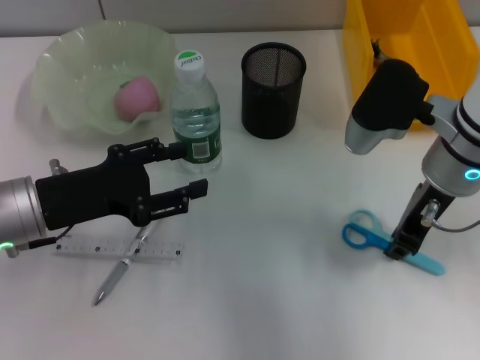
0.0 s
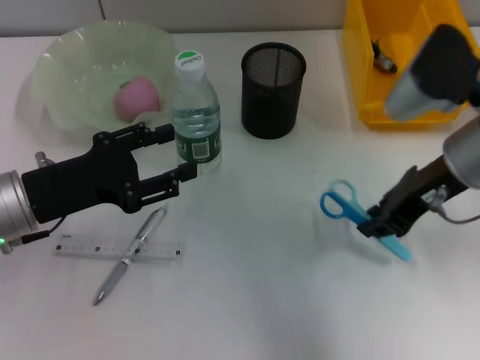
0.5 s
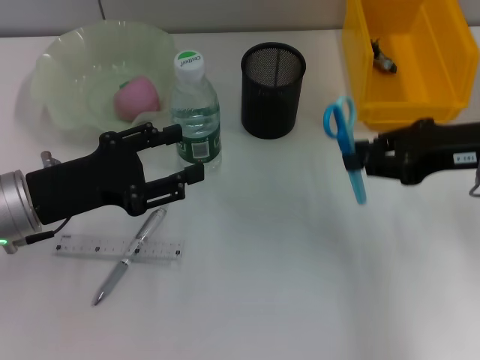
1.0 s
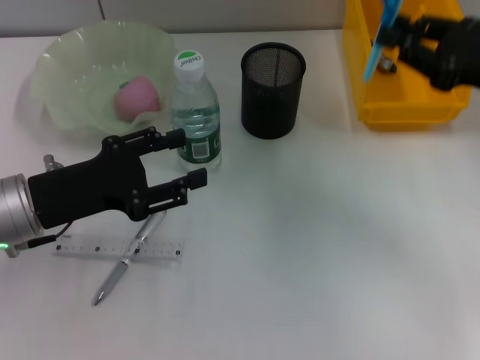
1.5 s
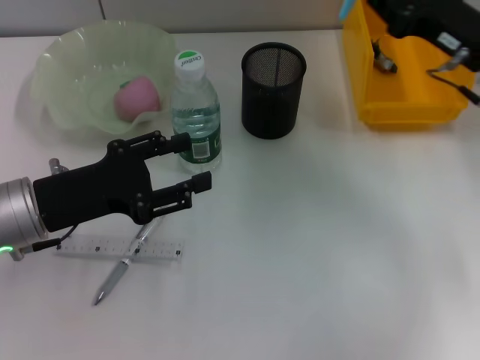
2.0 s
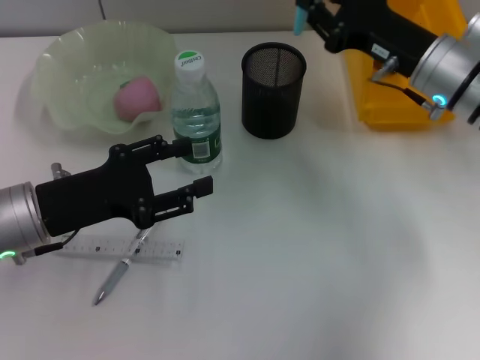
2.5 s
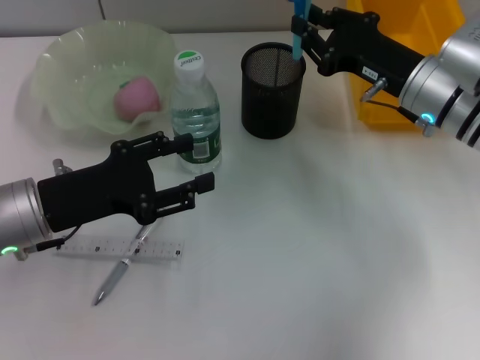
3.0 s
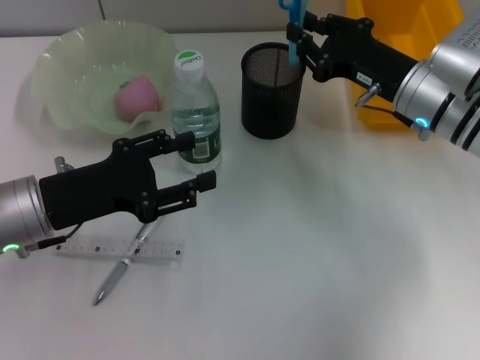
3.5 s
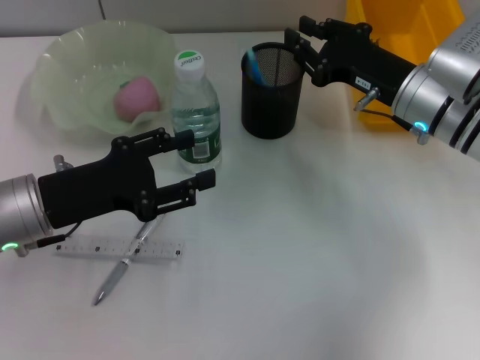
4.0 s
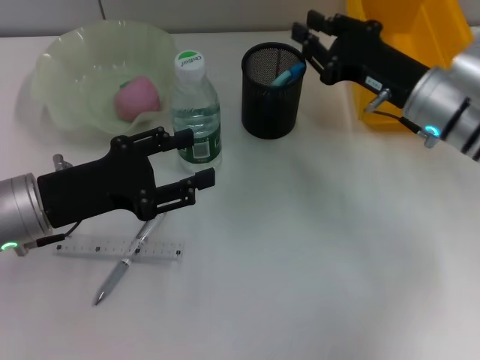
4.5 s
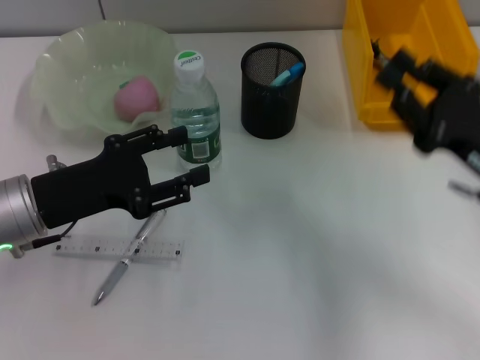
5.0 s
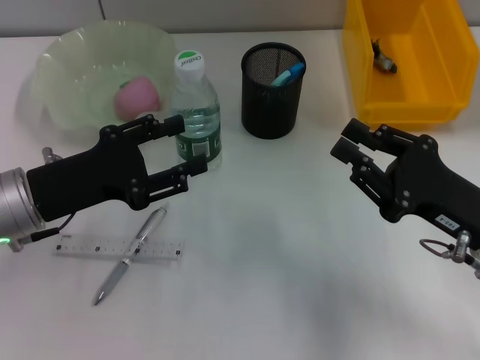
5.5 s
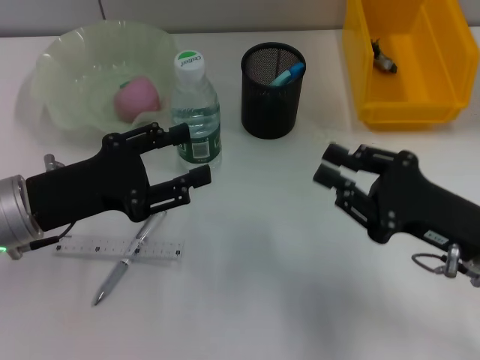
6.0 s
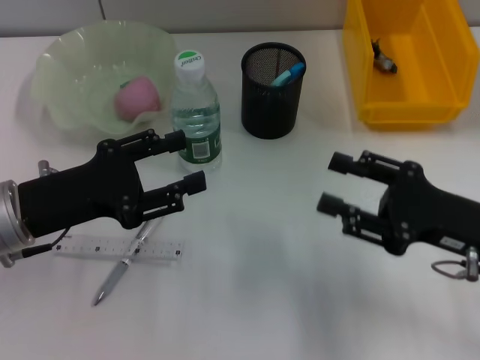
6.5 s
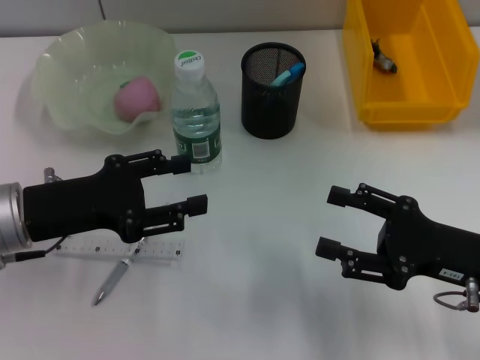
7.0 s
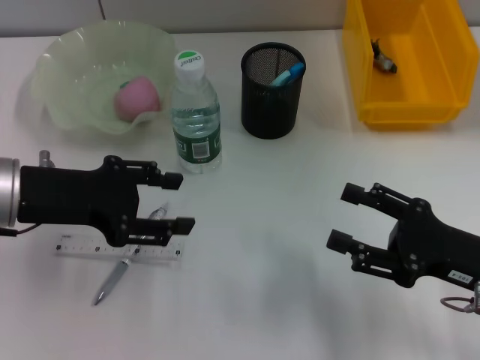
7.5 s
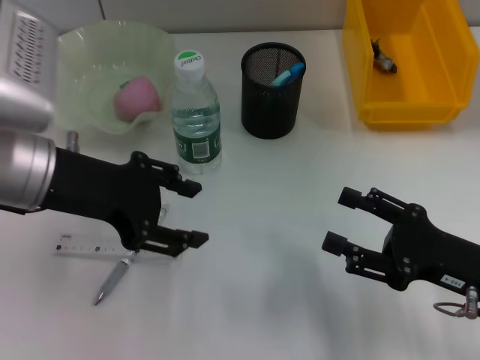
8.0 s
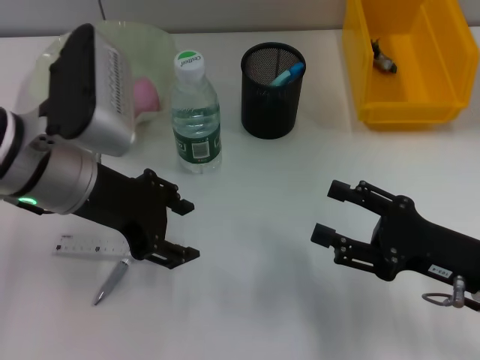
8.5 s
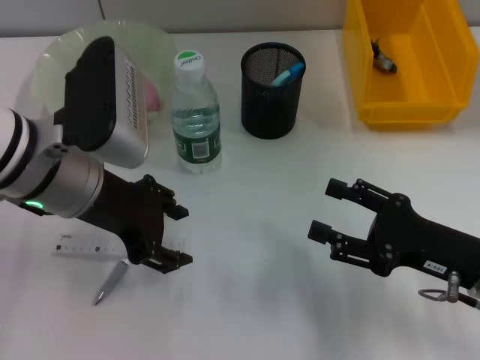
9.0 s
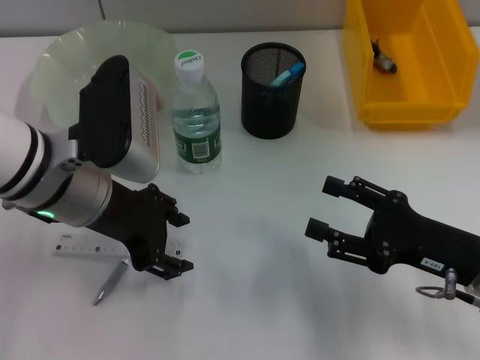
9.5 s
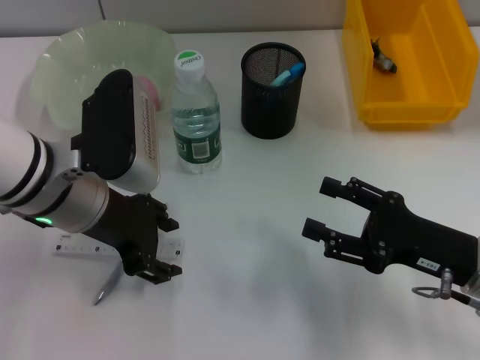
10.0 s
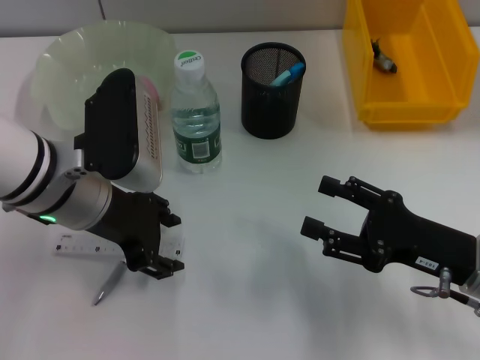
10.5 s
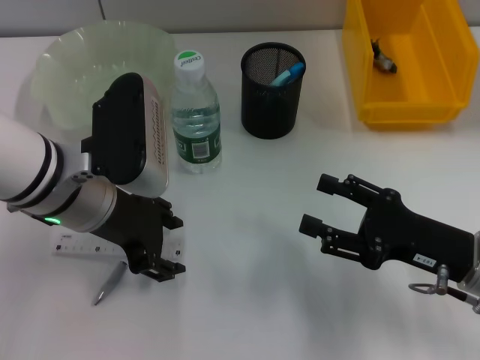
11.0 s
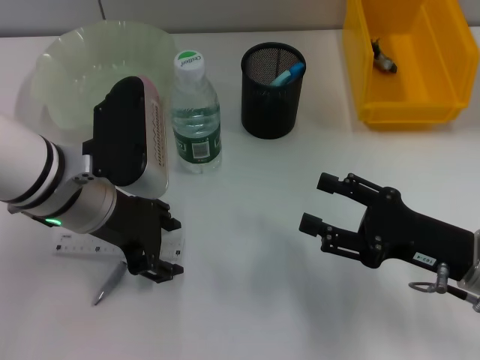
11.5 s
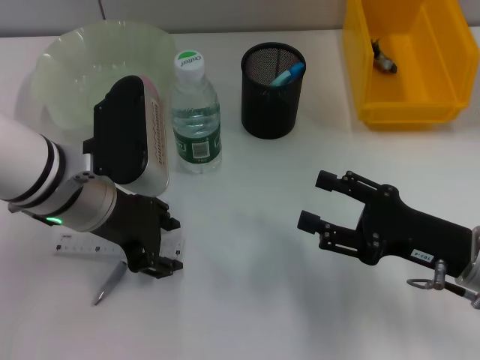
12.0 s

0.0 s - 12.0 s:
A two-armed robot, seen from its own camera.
Step, 0.0 s - 3.5 s: Place the blue scissors into the pen holder with the right hand.
0.0 s - 2.0 s: The right gripper heads to the right, covering roughly 10 cm.
2.0 s - 4.0 s: The right gripper travels to the left by about 5 cm.
4.0 s - 6.0 s: The right gripper goes about 15 cm backward.
6.0 s - 8.0 s: The right gripper opens up, while the left gripper travels upward by about 10 cm.
8.0 s - 10.0 s: The left gripper ends up some 5 cm from where it was.
10.0 s - 12.0 s: Both grippers stay about where they are.

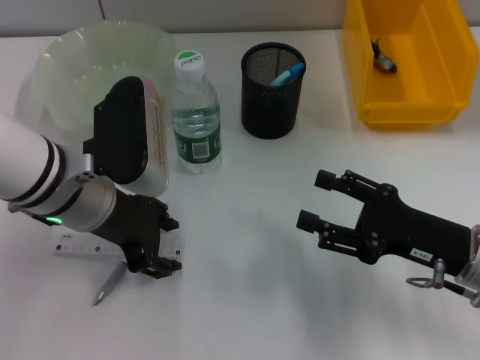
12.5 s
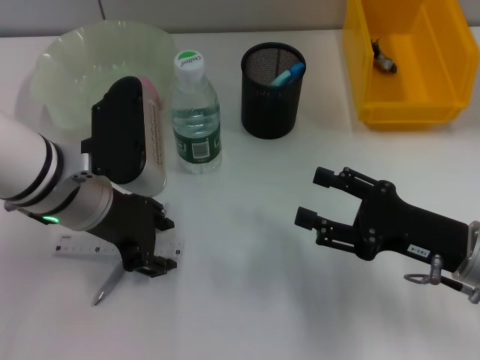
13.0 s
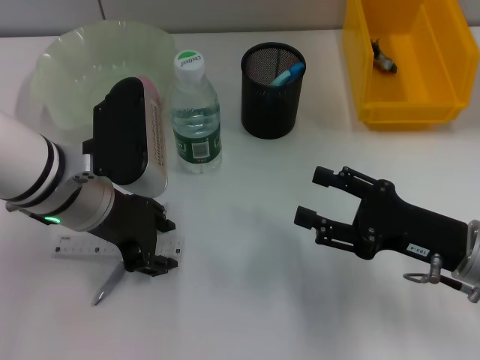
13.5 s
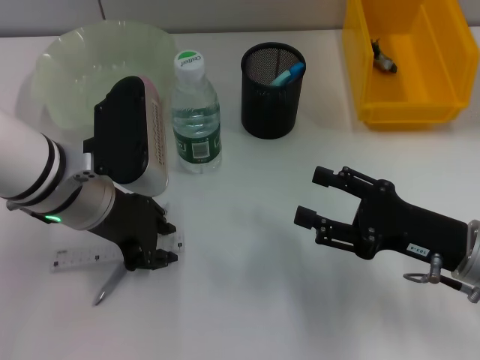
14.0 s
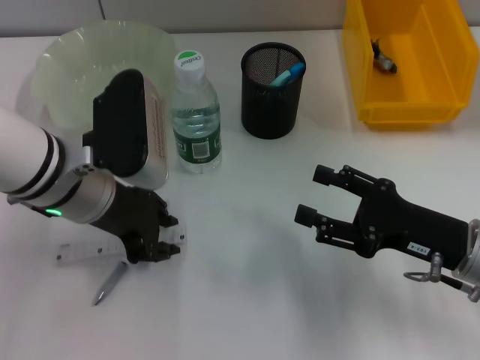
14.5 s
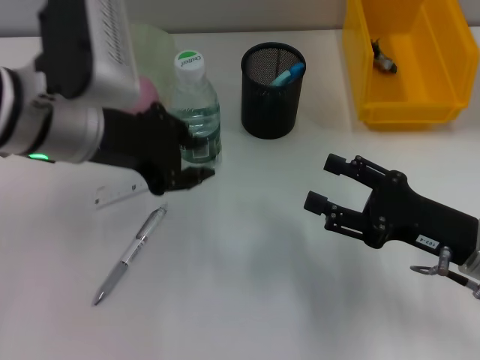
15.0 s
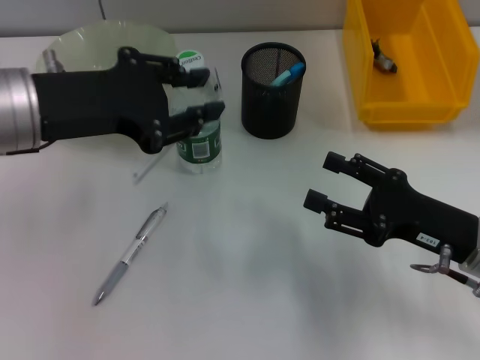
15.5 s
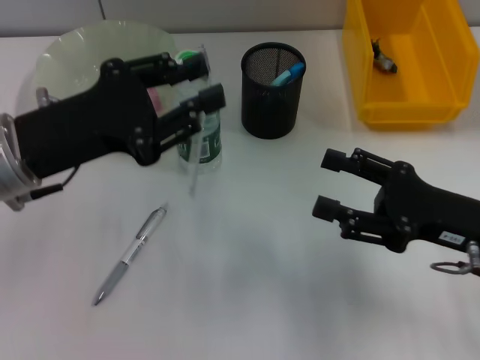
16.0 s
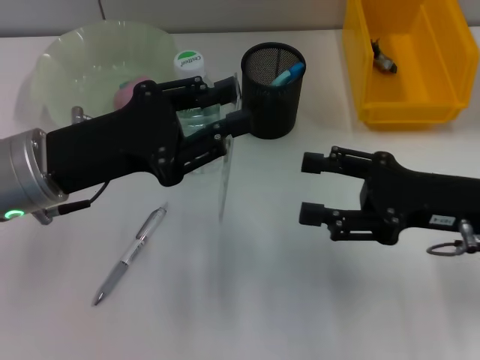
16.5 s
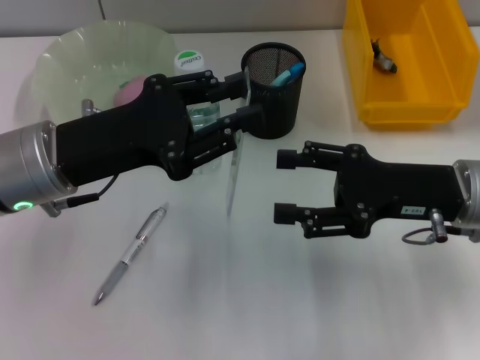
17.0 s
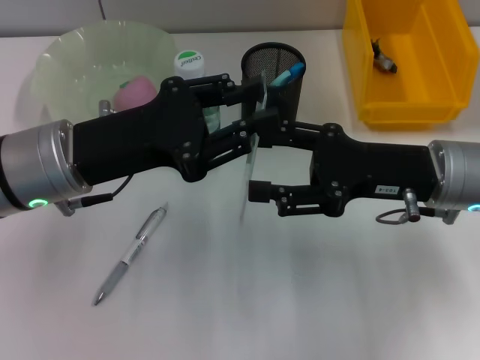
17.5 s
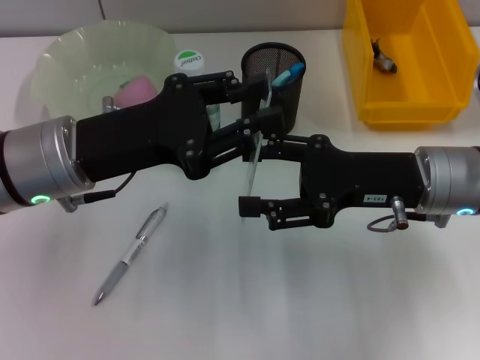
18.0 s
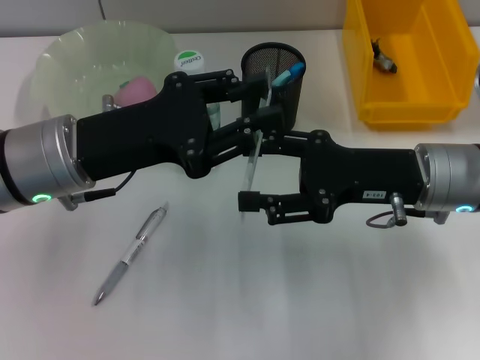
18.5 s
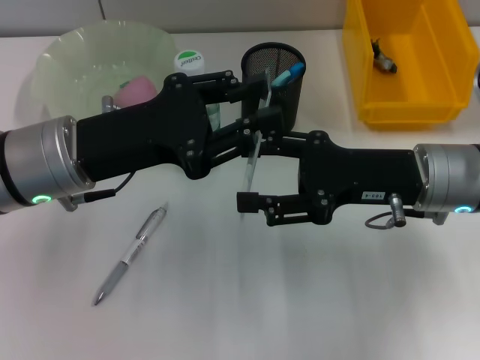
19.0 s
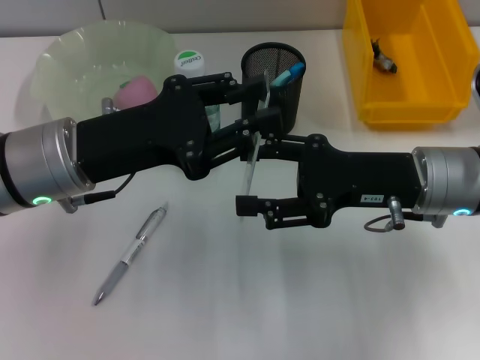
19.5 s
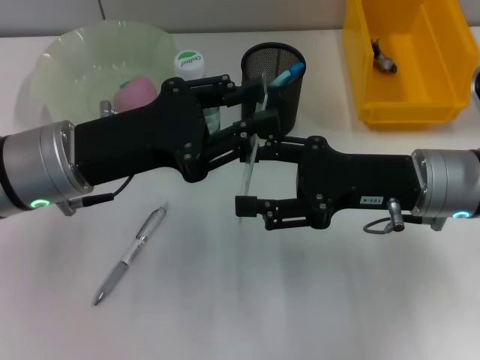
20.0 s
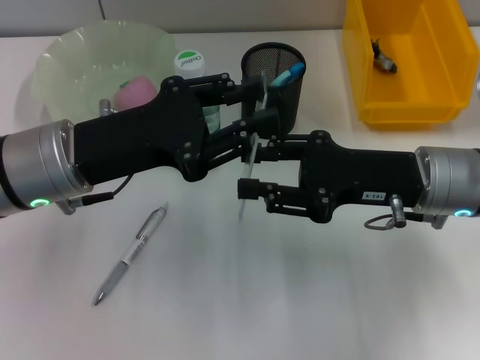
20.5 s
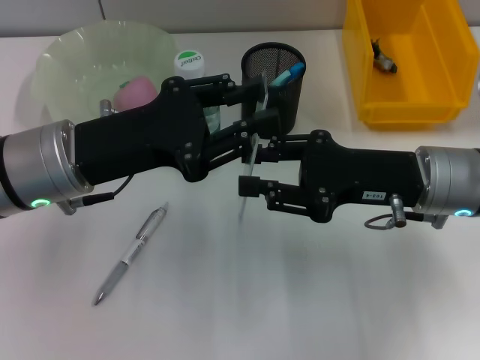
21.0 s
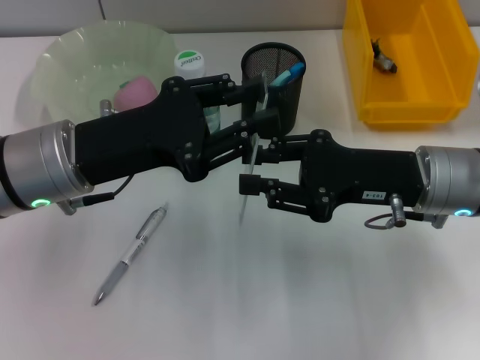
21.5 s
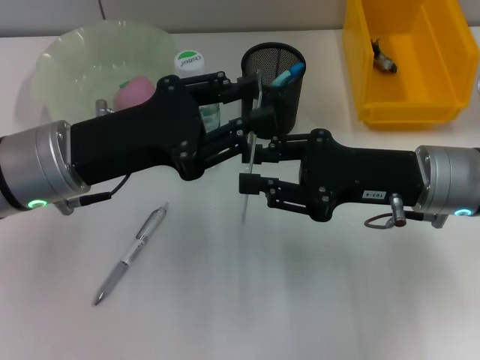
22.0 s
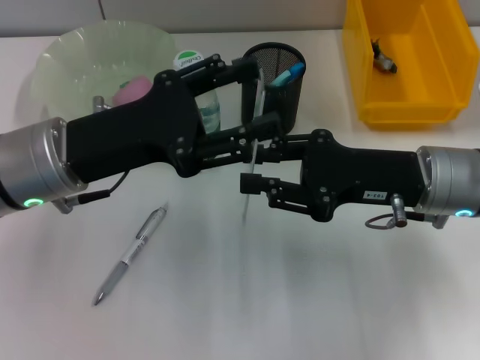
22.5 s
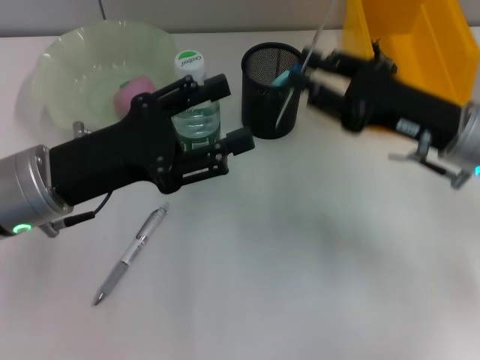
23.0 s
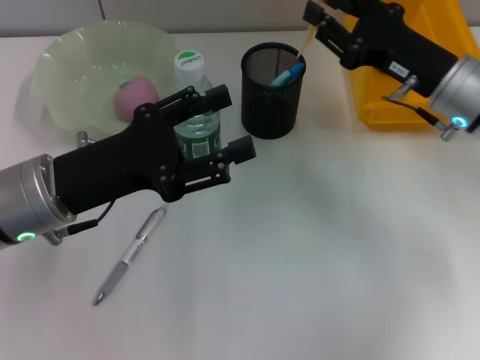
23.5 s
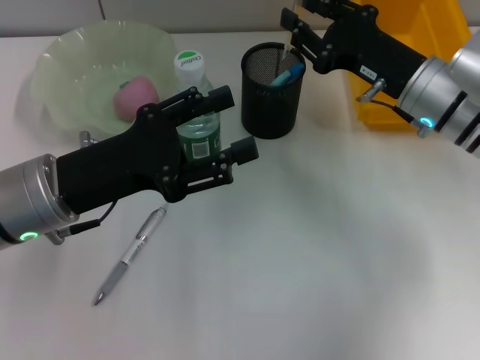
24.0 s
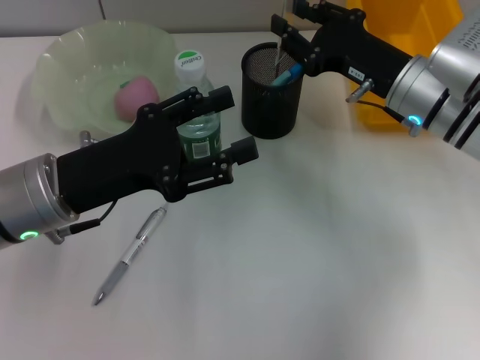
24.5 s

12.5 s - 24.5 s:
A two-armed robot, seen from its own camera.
Step, 14.5 s - 22.5 s: Pass the ruler from the left hand to the right hand.
12.5 s - 14.5 s: The left gripper closes.
14.5 s - 16.5 s: The left gripper ends up roughly 5 cm from where it was, while the right gripper goes about 5 cm upward.
16.5 s - 18.5 s: The right gripper ends up some 5 cm from where it was.
18.5 s - 20.5 s: Neither gripper changes place.
20.5 s - 22.5 s: The right gripper closes its fingers.
22.5 s - 24.5 s: The right gripper is displaced forward by about 10 cm.

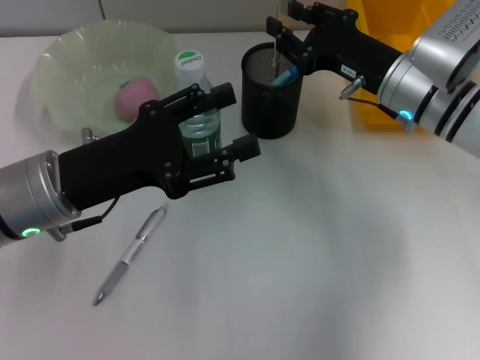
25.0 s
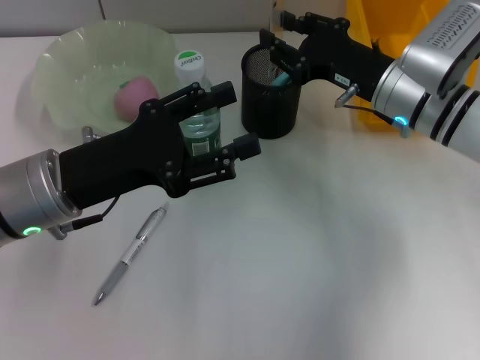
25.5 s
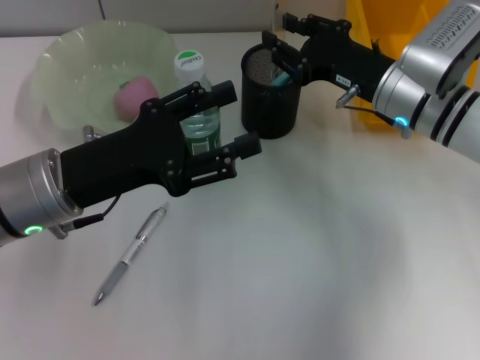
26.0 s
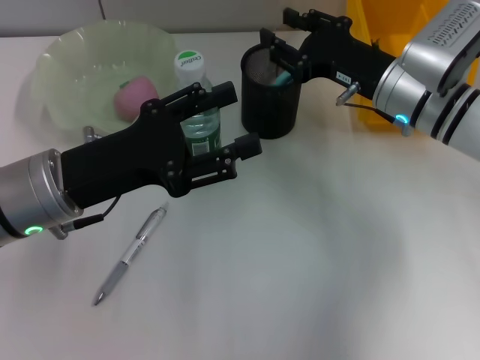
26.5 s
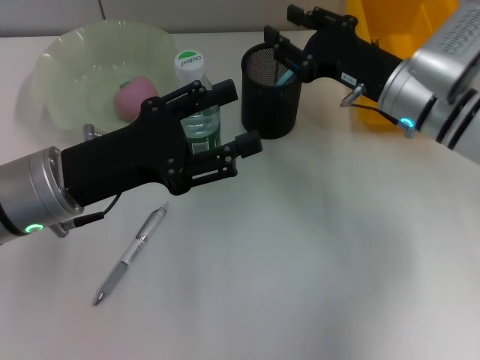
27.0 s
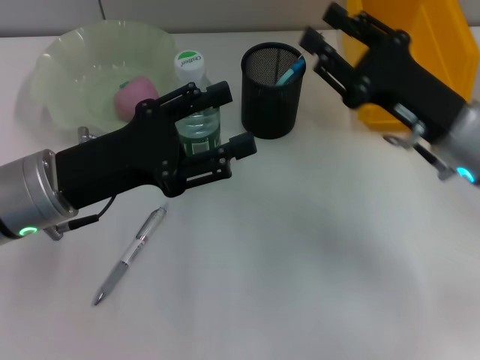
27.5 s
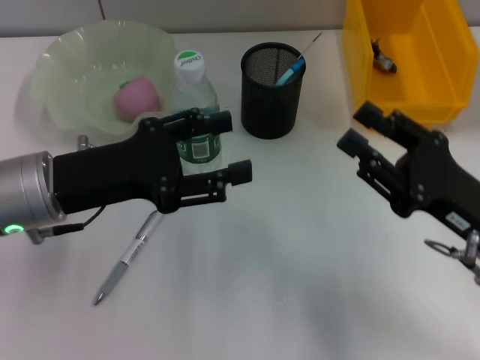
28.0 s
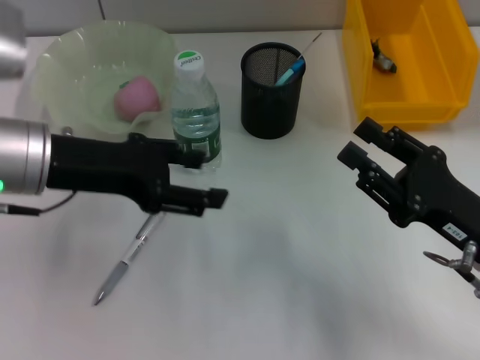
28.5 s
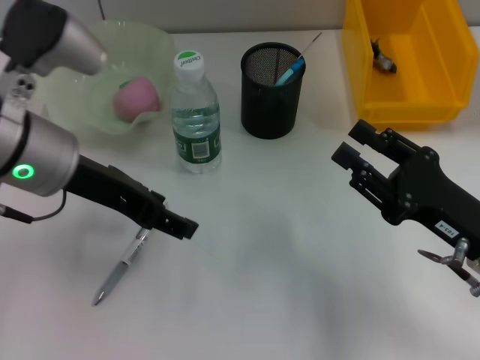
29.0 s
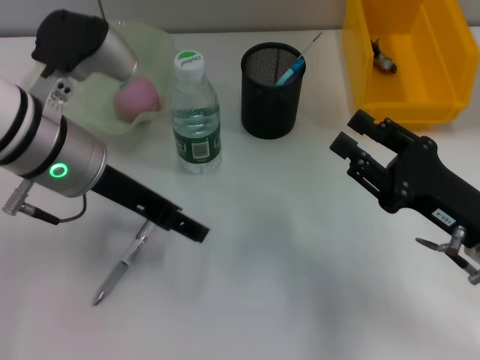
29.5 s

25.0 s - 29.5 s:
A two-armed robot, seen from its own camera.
25.0 s - 27.0 s: The two grippers keep their place.
27.0 s - 29.5 s: The right gripper is displaced backward and to the right by about 15 cm. Meanwhile the left gripper heads upward, covering approximately 5 cm.
